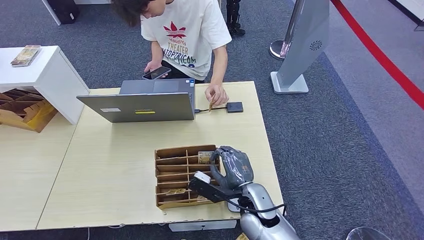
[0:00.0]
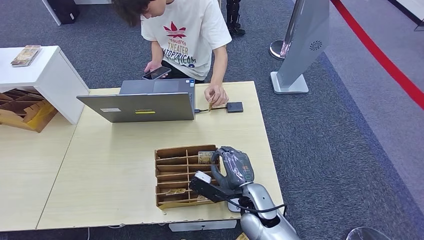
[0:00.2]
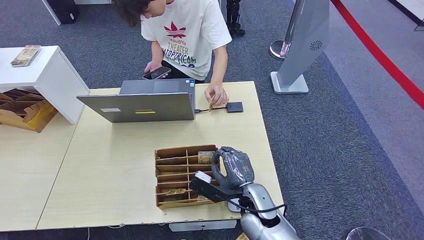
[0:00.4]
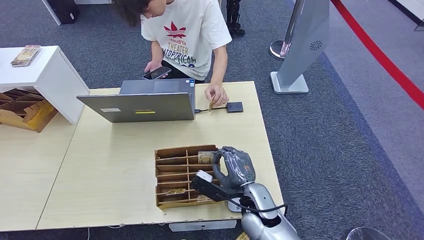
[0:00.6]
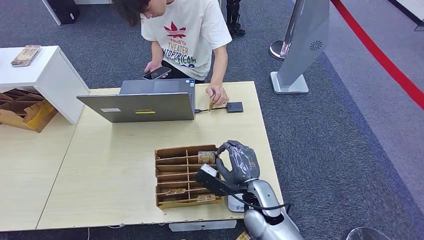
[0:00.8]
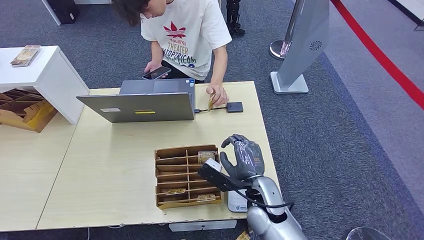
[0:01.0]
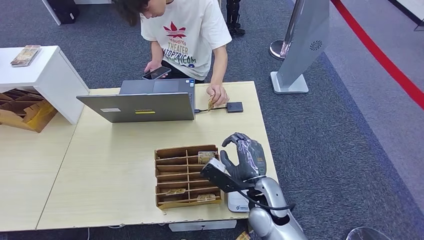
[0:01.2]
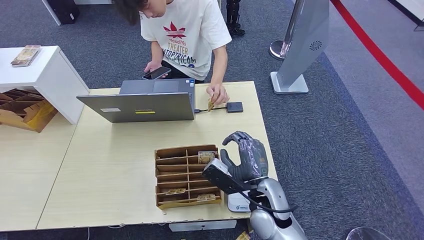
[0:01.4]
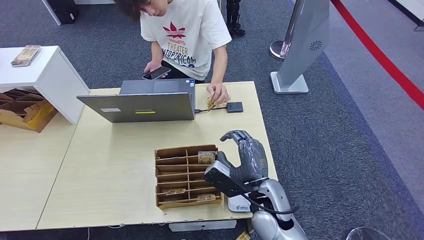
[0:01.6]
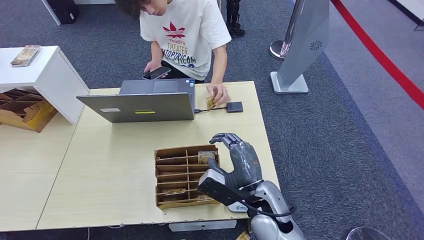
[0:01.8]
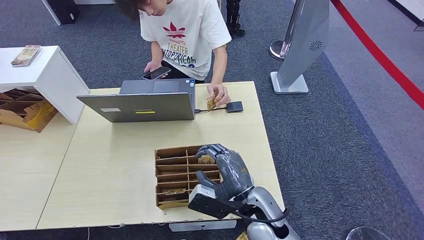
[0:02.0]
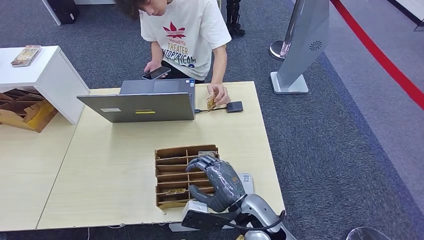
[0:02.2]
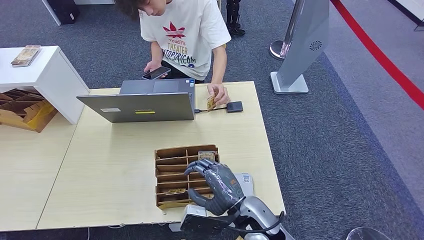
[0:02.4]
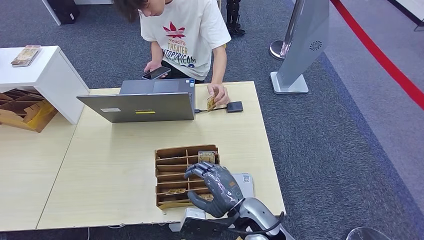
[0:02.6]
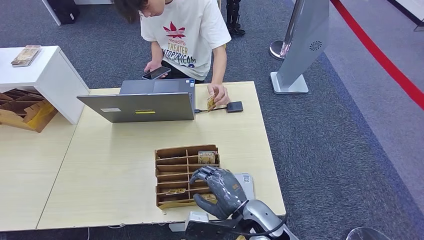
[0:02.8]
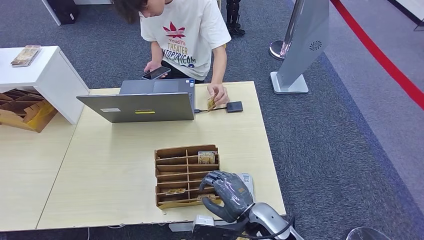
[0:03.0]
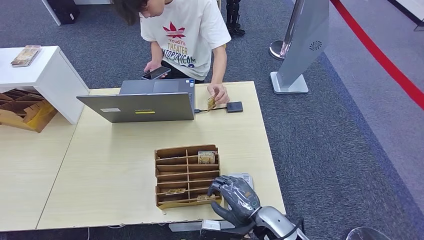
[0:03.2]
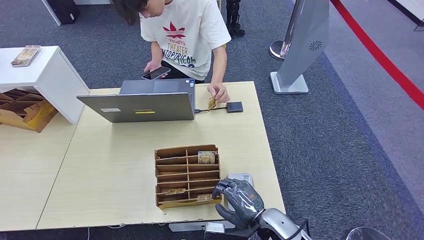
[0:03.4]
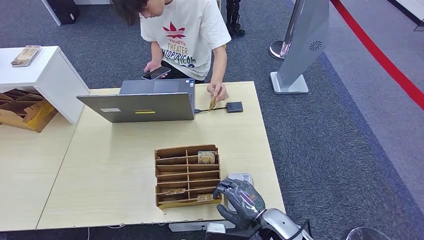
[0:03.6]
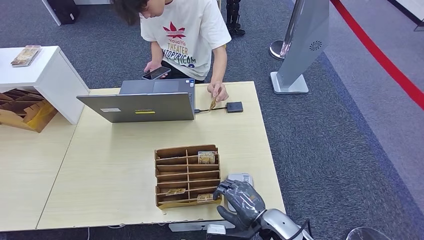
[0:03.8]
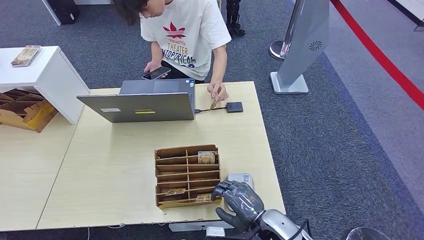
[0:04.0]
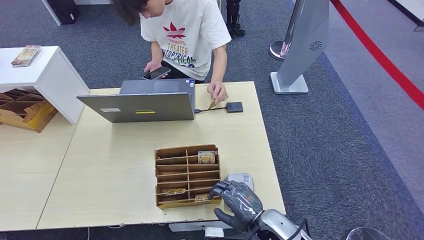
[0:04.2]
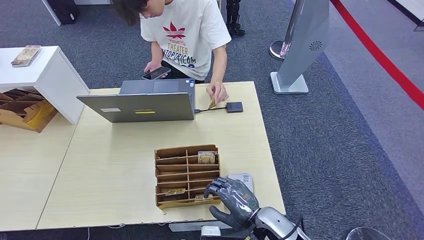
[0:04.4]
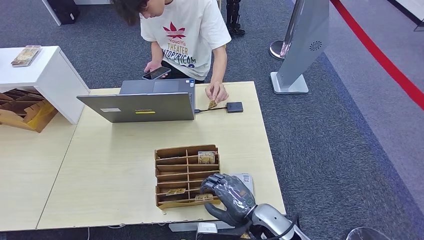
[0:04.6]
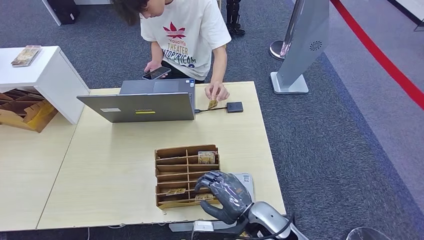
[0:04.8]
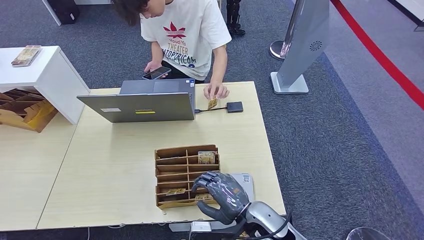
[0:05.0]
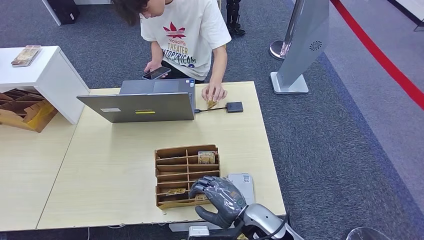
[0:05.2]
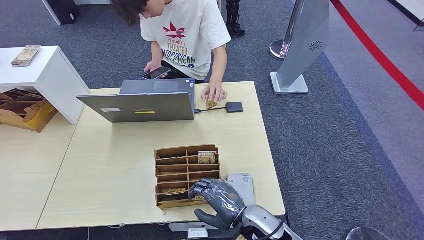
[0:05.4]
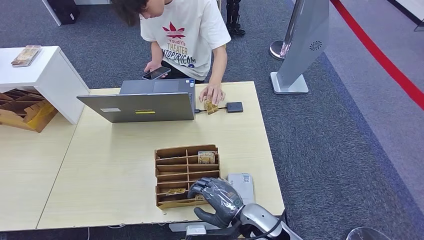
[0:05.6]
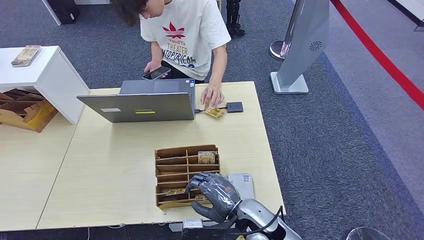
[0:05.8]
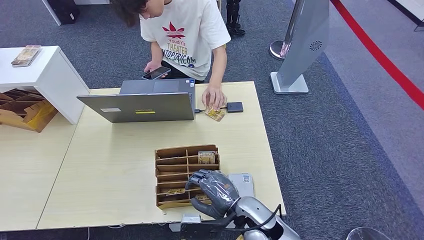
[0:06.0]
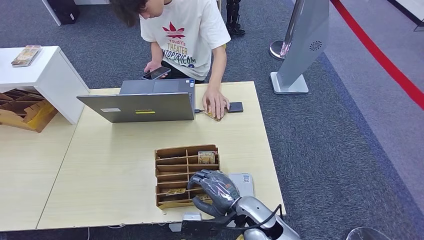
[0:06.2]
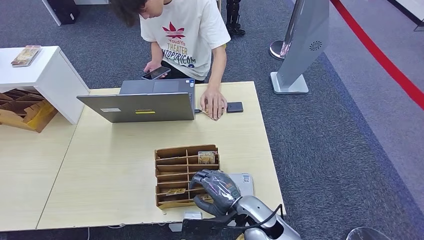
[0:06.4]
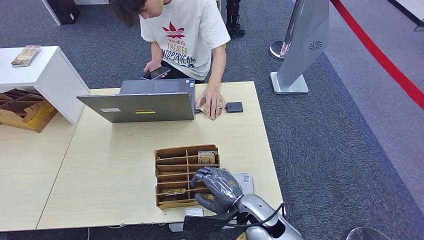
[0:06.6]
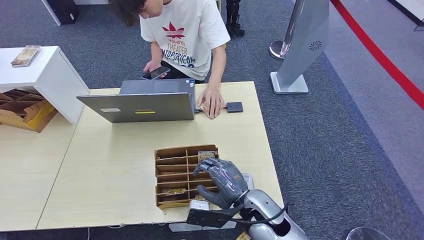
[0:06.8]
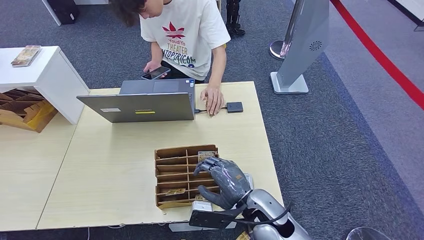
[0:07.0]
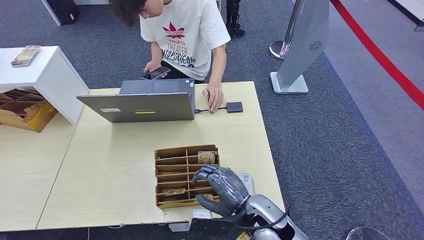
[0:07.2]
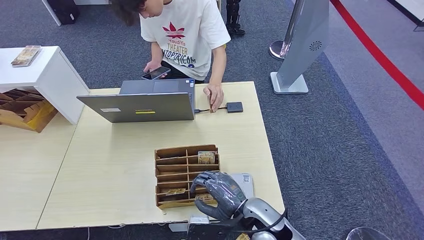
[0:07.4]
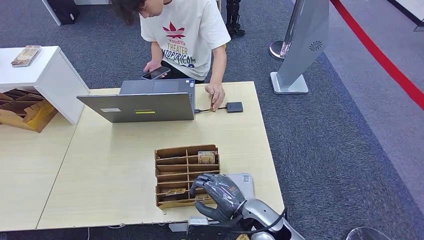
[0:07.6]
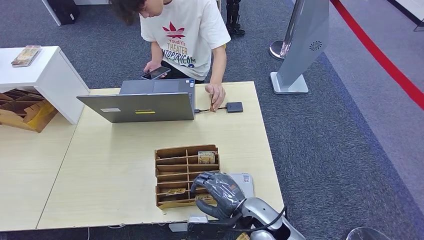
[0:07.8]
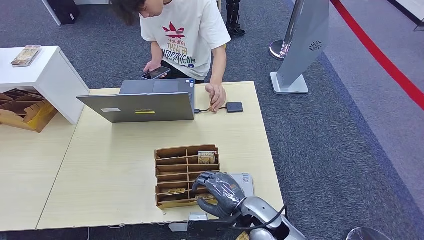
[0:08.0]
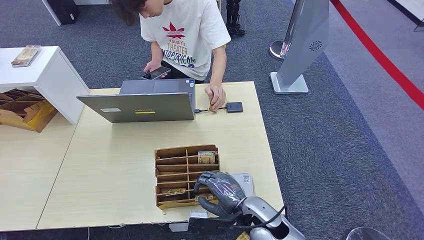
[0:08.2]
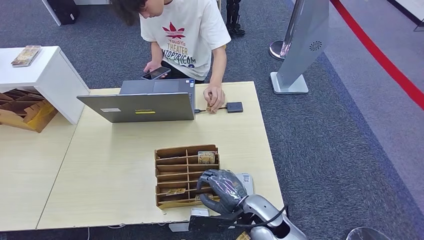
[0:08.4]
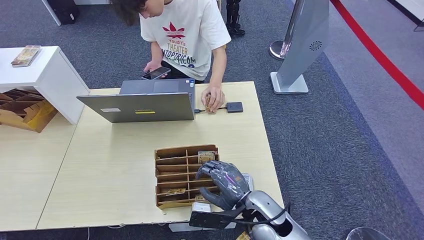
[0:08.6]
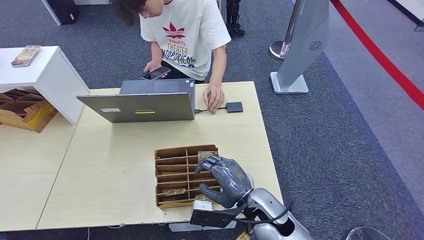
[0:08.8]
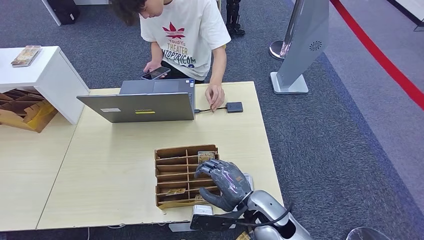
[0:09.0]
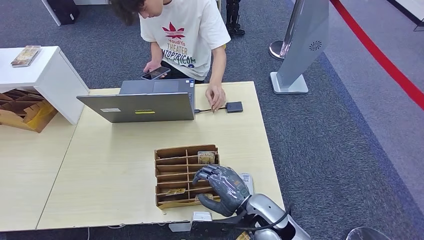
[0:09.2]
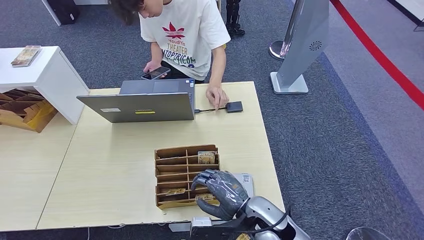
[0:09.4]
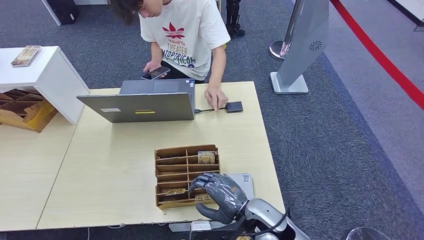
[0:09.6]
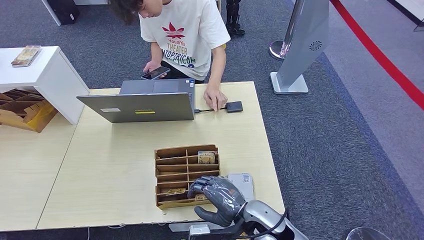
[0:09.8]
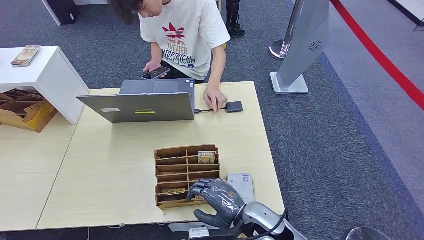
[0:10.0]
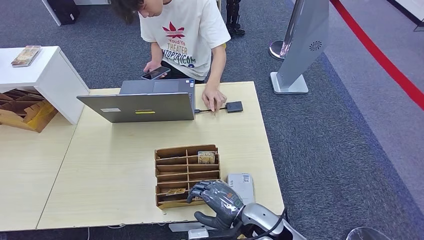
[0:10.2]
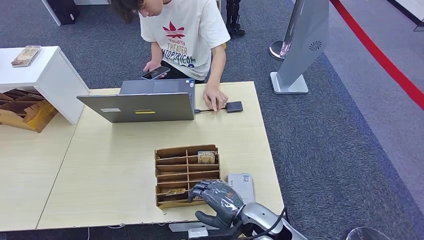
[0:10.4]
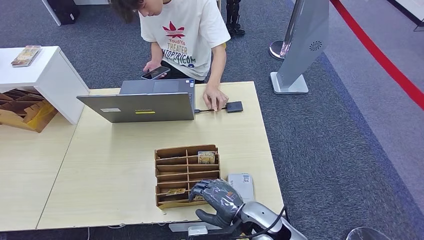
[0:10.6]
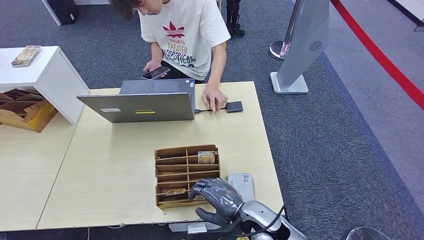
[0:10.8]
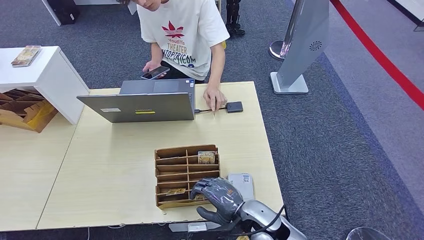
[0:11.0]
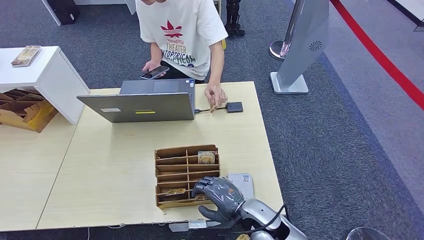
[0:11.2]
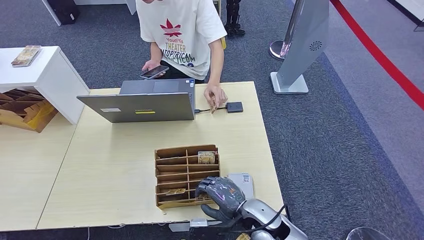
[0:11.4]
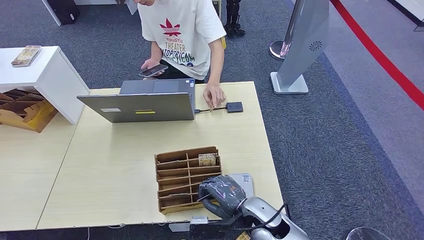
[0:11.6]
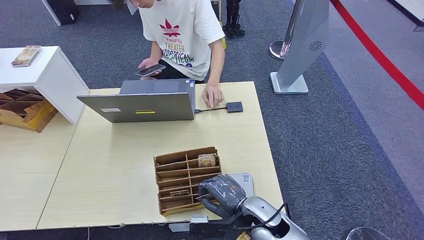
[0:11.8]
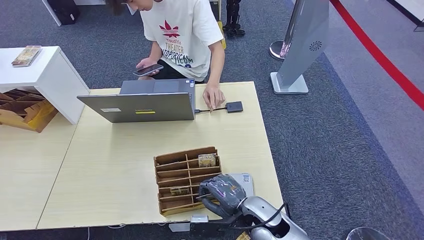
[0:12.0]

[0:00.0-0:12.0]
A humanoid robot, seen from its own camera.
0:00.0 to 0:01.6: There are only small adjustments of the hands.
0:01.6 to 0:03.0: The right hand ends up some 5 cm from where it was.
0:03.0 to 0:04.4: The hands make only small movements.
0:04.4 to 0:06.0: The right hand changes place by about 5 cm.
0:06.0 to 0:12.0: There are only small adjustments of the hands.

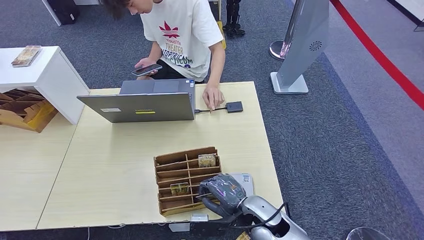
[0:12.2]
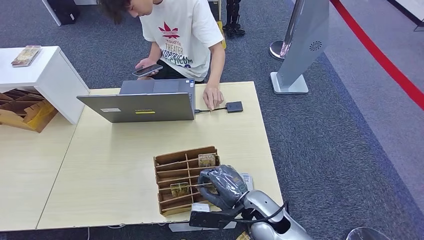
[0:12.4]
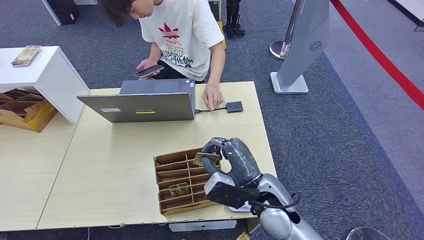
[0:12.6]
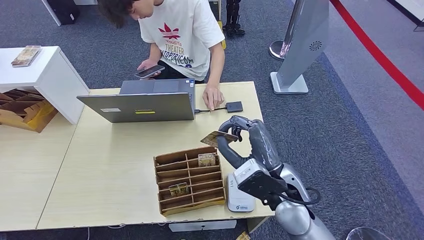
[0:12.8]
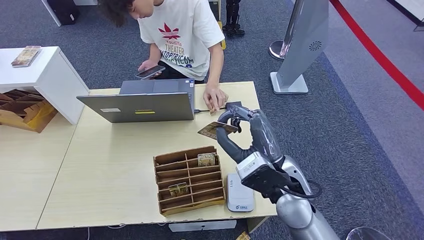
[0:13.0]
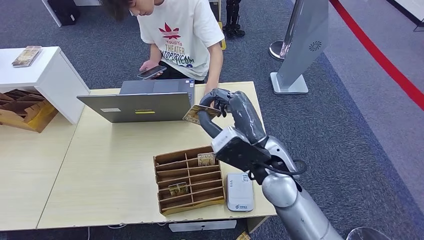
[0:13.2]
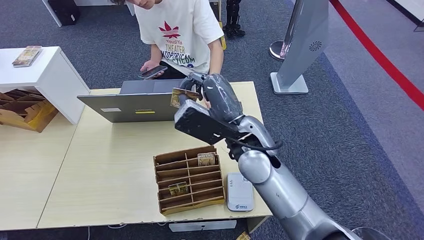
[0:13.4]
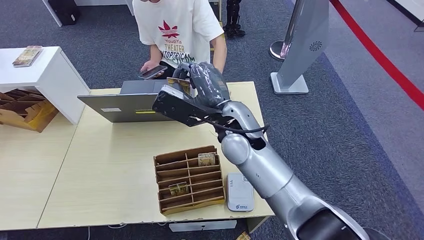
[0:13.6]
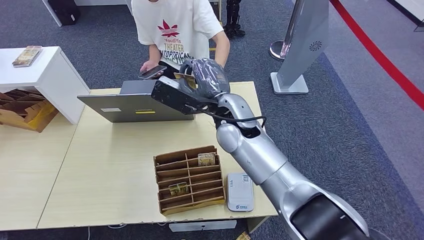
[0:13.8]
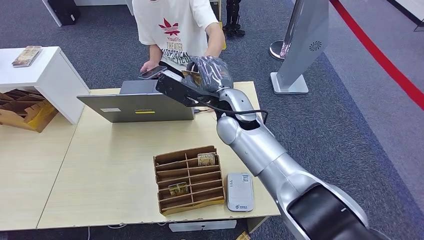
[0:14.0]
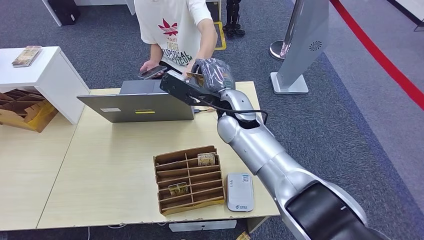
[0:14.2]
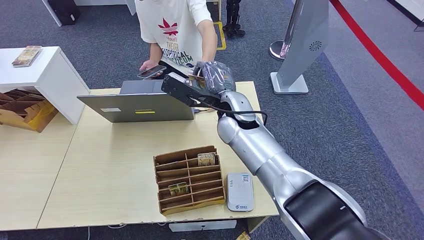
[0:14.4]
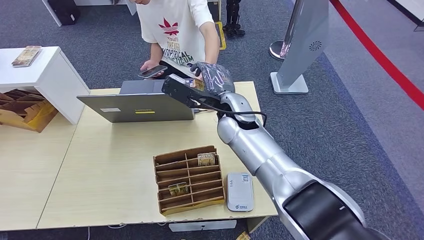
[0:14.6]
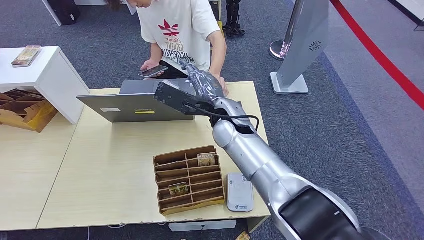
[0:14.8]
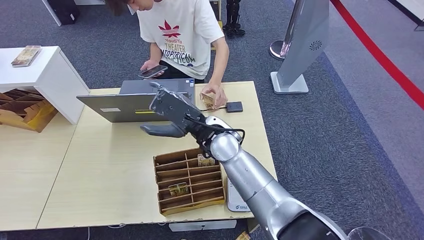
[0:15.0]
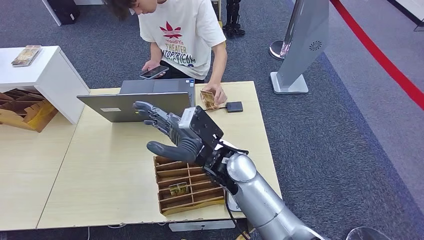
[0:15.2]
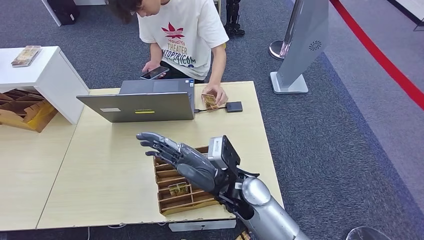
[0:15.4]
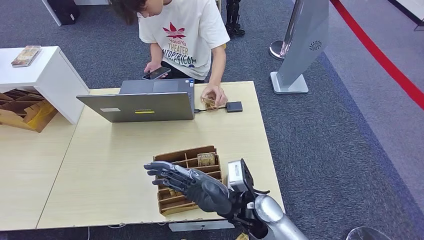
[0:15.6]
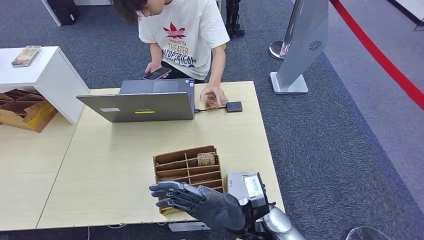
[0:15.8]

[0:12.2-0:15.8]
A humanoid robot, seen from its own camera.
Step, 0:12.4 to 0:15.8: Hand the room key to the person.
0:12.2 to 0:14.0: The right hand moves upward and forward, approximately 25 cm.
0:14.0 to 0:15.8: The right hand is displaced backward and downward by approximately 25 cm.
